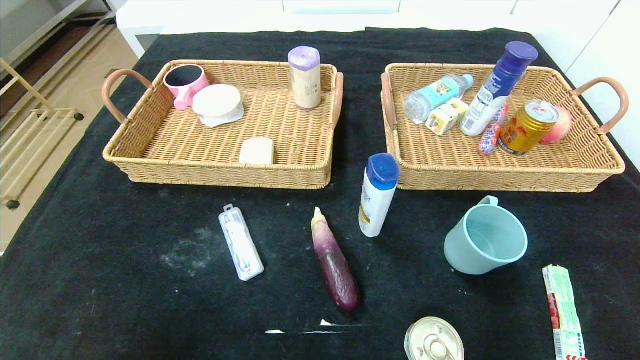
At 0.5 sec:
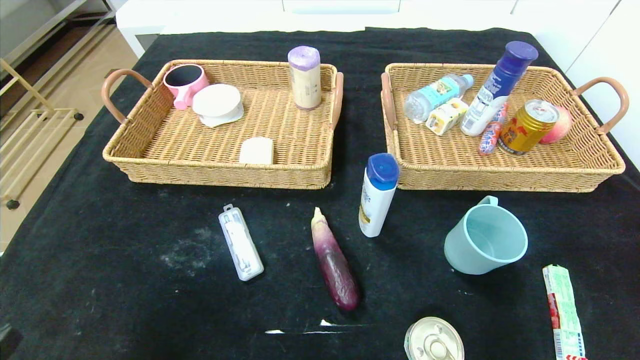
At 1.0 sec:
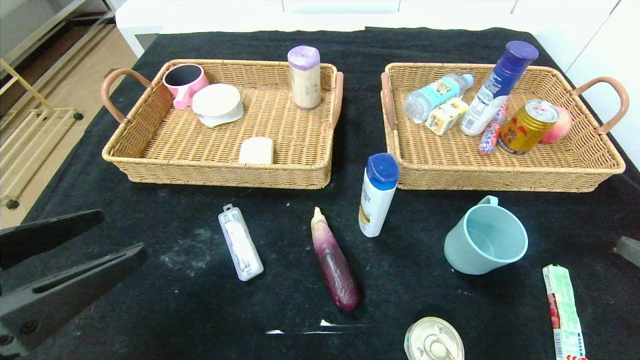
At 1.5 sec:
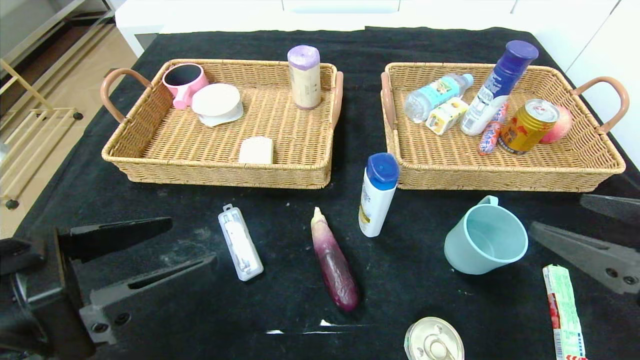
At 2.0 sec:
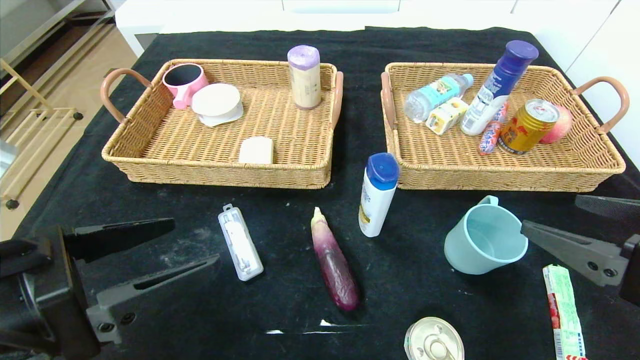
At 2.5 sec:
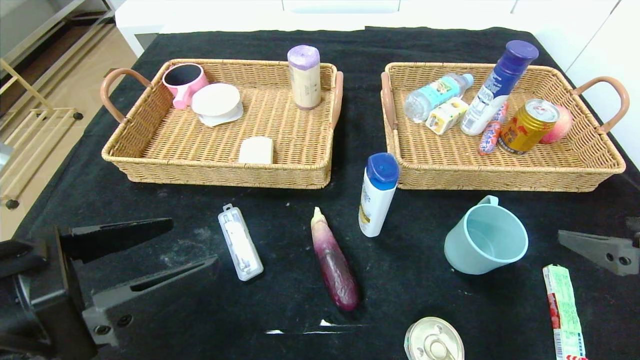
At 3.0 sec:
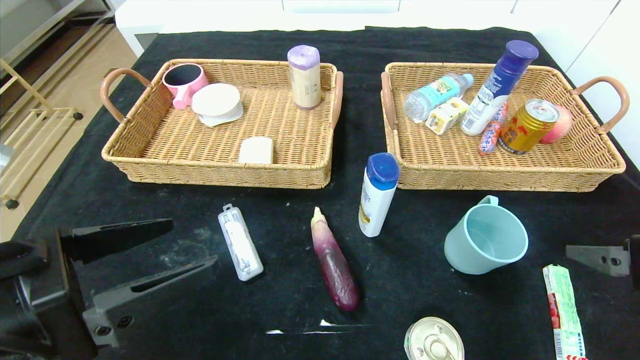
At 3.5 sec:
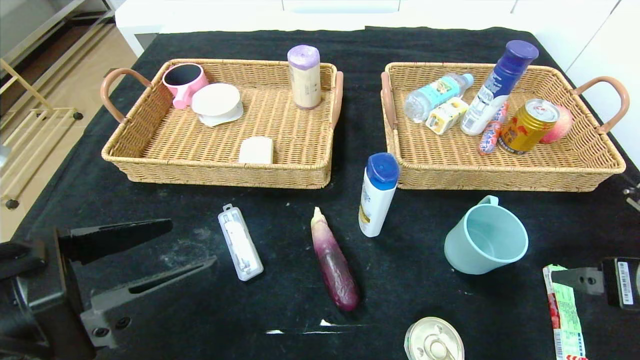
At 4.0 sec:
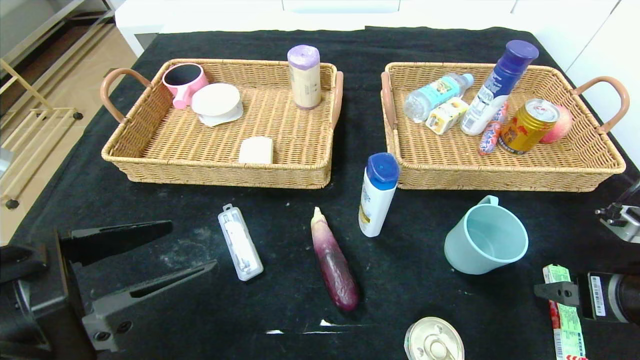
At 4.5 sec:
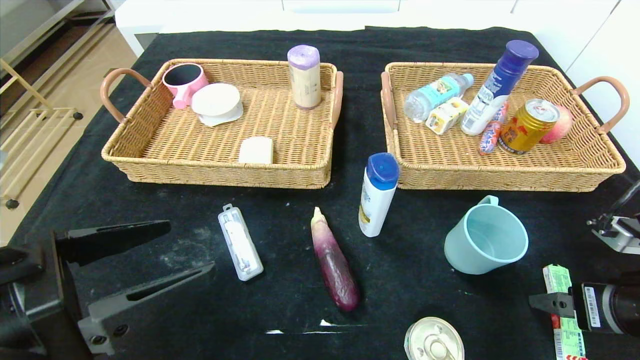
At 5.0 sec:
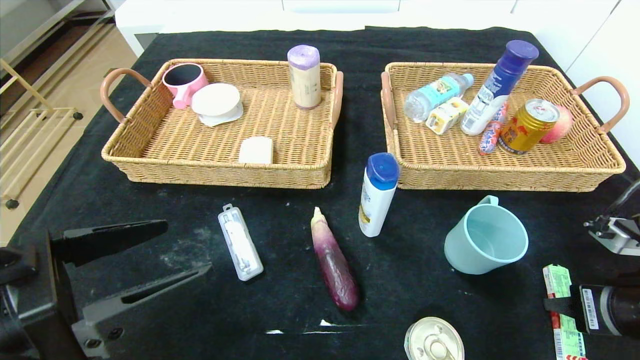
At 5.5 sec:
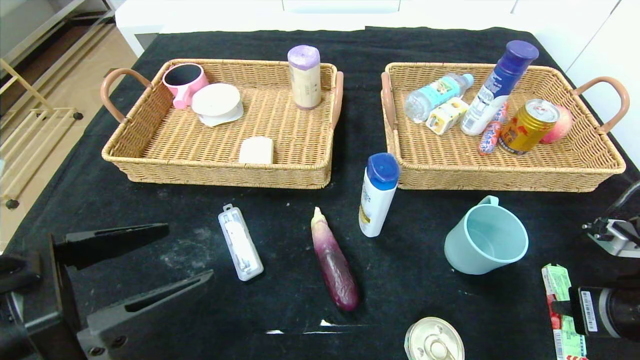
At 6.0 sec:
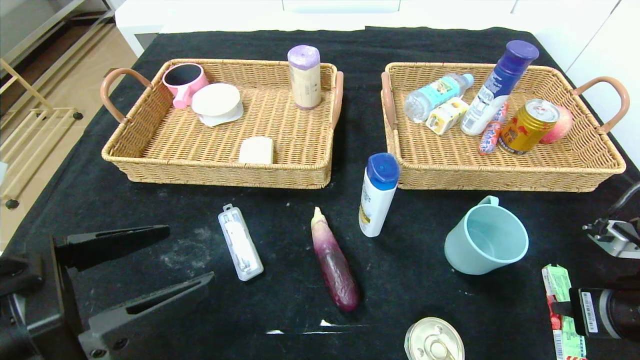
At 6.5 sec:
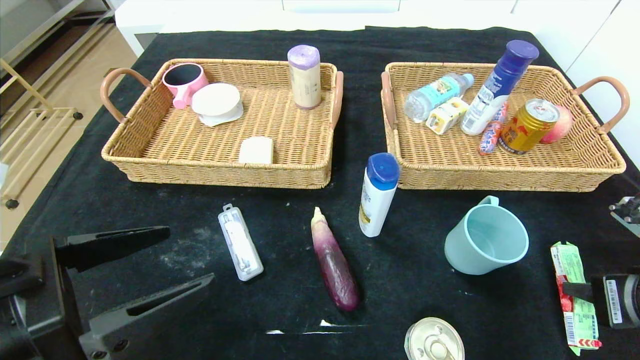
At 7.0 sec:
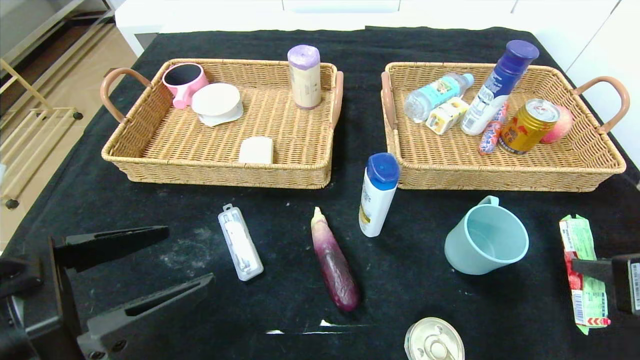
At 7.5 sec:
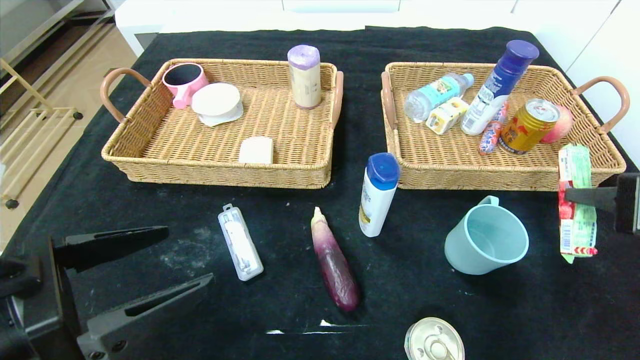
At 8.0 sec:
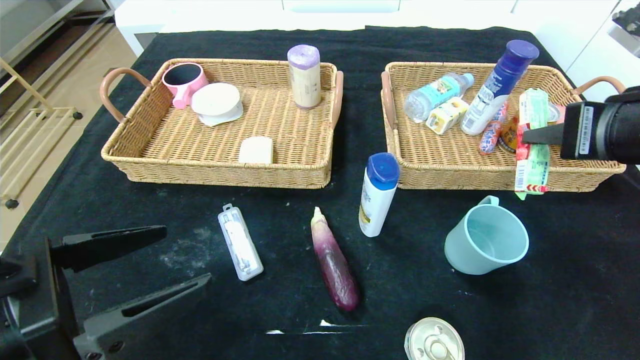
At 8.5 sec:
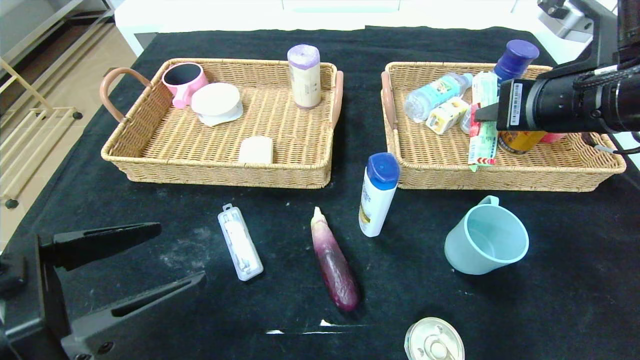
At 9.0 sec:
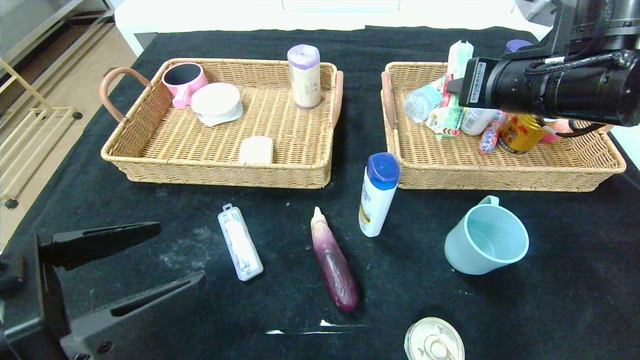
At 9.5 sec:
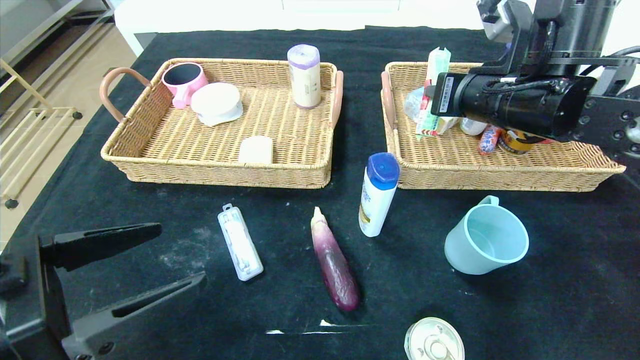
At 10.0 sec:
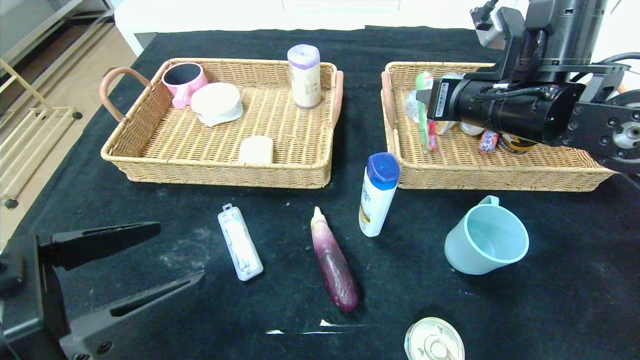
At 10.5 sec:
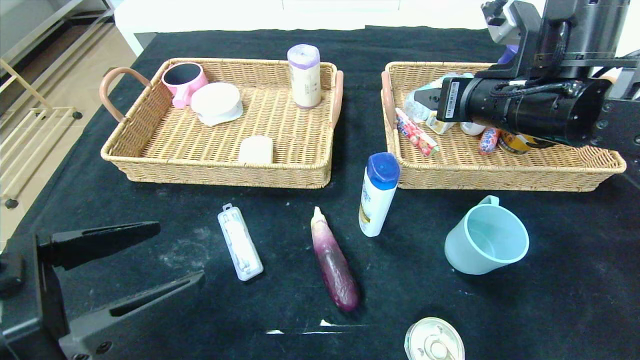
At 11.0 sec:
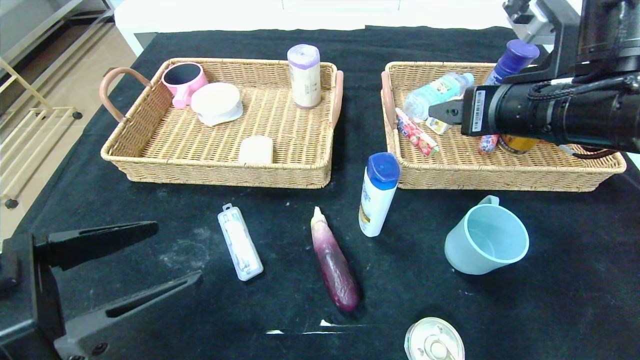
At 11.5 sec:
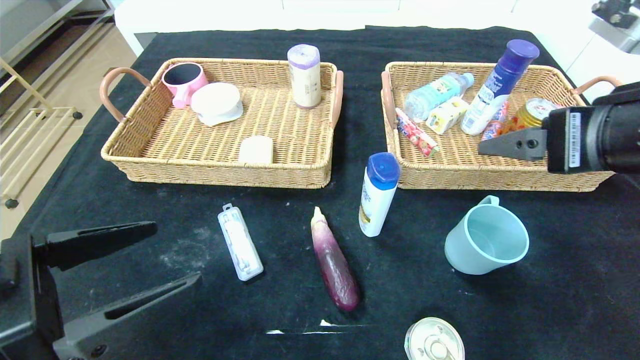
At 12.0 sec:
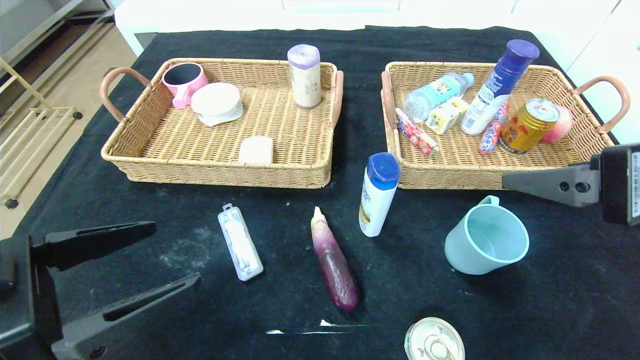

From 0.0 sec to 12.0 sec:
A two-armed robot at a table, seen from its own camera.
From 0.0 sec to 2.0 sec: The left gripper goes some 20 cm forward, upward and to the right, while the right gripper heads forward, upward and to the left, covering approximately 20 cm.
From 2.0 sec to 4.0 sec: The right gripper goes roughly 5 cm downward.
From 4.0 sec to 6.0 sec: The right gripper closes its fingers.
From 6.0 sec to 8.0 sec: The right gripper shifts about 15 cm upward.
From 8.0 sec to 10.0 sec: The right gripper is displaced forward and to the left by approximately 15 cm, and opens its fingers.
From 10.0 sec to 12.0 sec: The right gripper moves backward, about 20 cm, and opens its fingers.

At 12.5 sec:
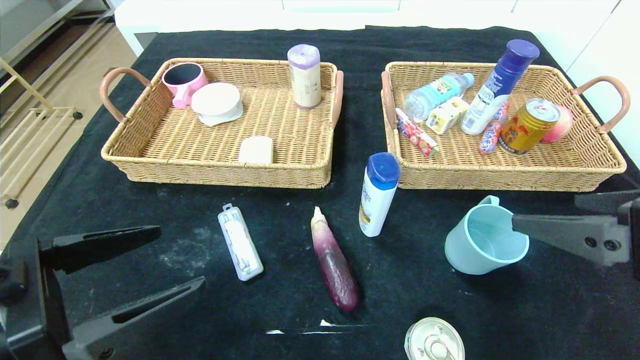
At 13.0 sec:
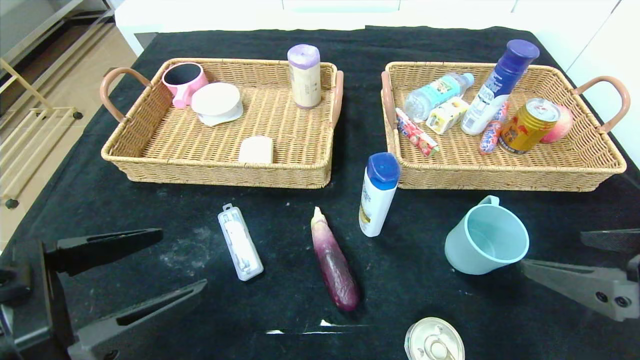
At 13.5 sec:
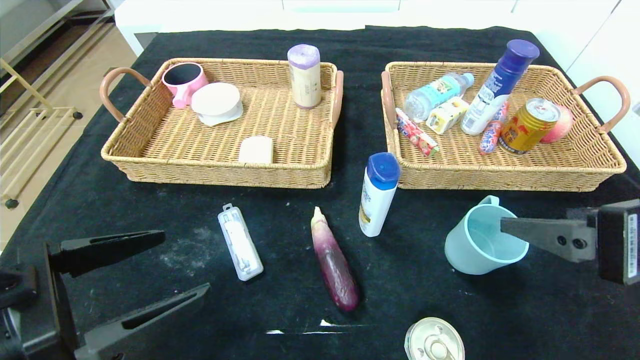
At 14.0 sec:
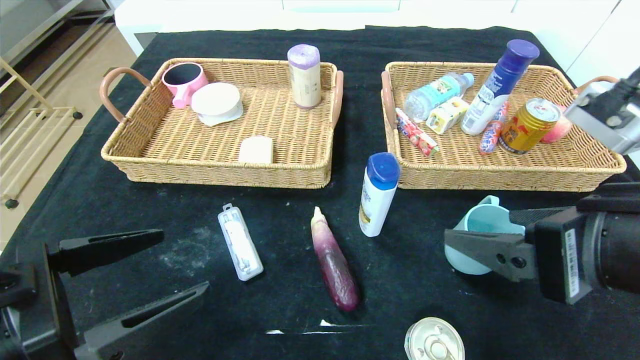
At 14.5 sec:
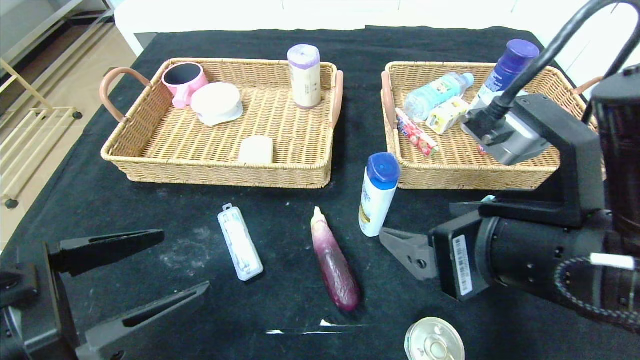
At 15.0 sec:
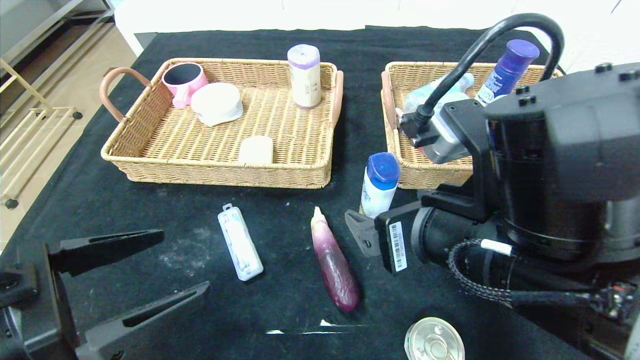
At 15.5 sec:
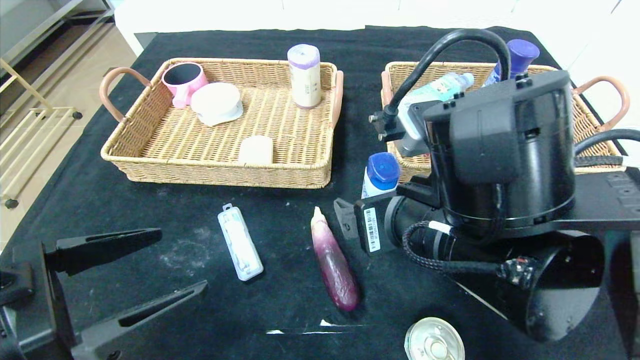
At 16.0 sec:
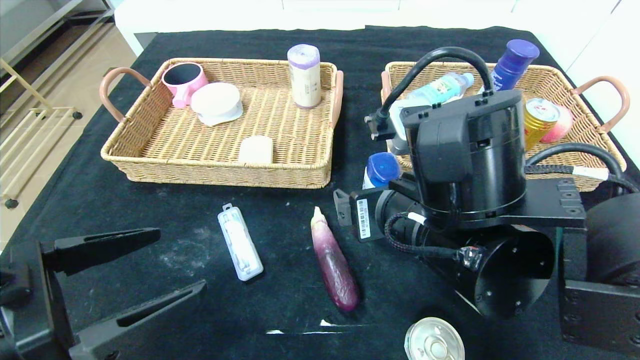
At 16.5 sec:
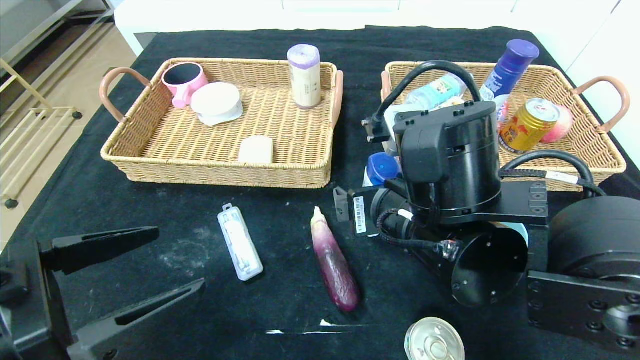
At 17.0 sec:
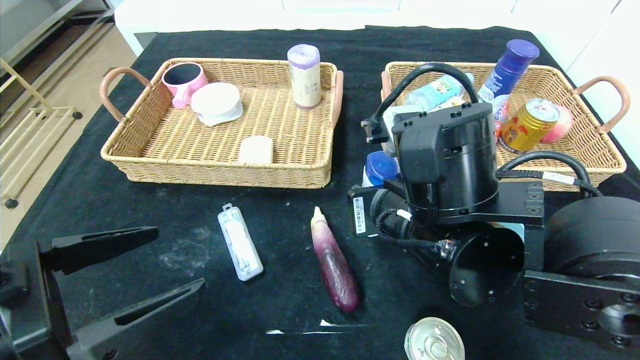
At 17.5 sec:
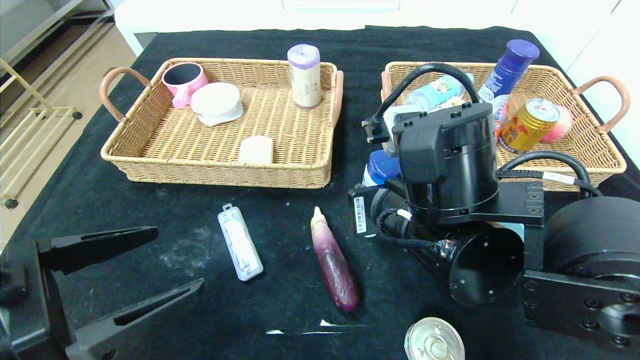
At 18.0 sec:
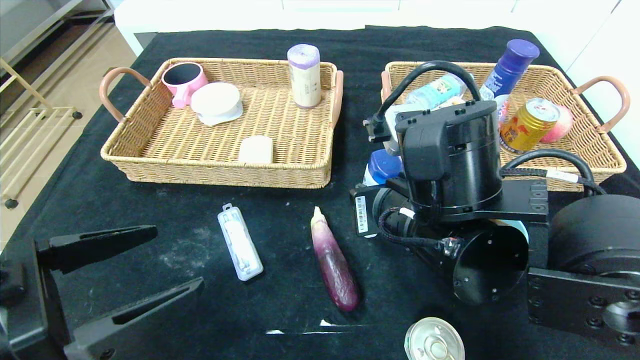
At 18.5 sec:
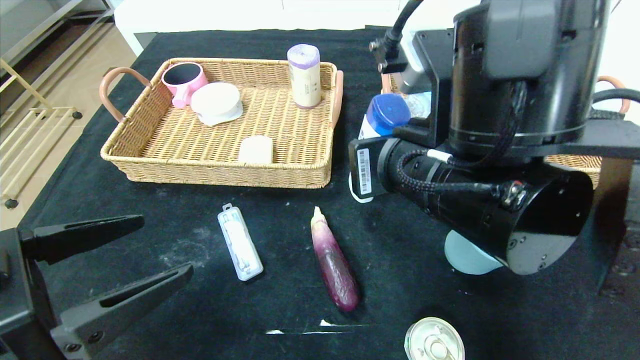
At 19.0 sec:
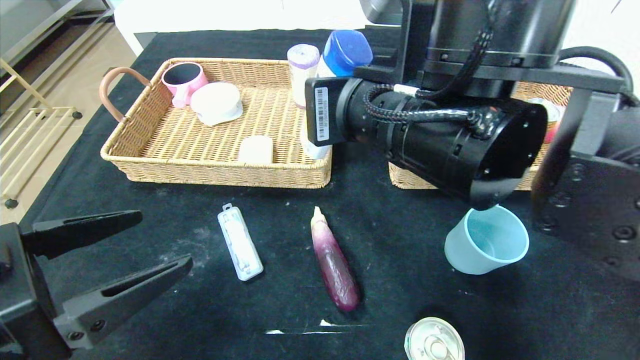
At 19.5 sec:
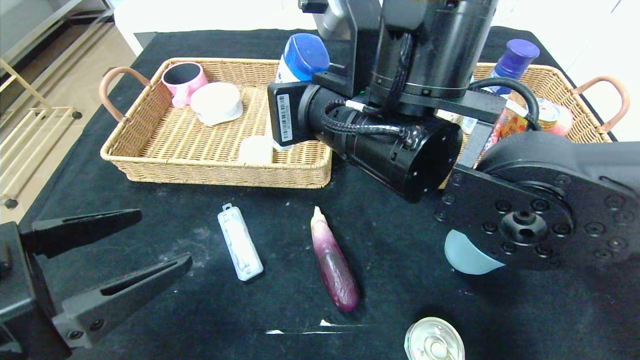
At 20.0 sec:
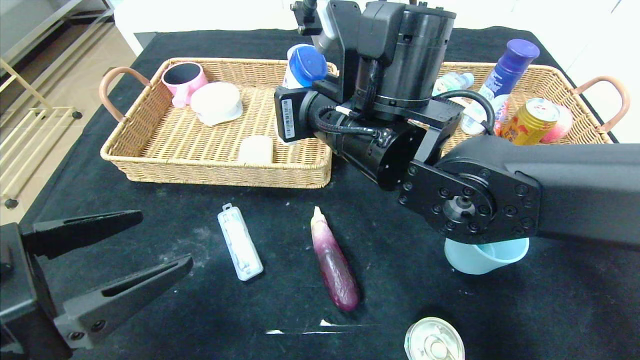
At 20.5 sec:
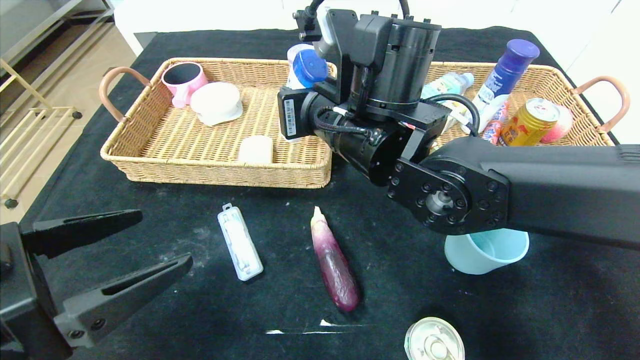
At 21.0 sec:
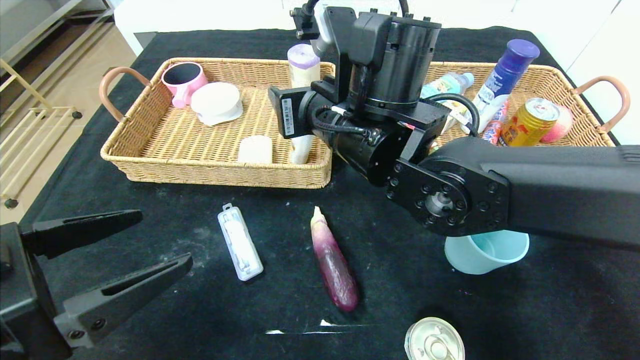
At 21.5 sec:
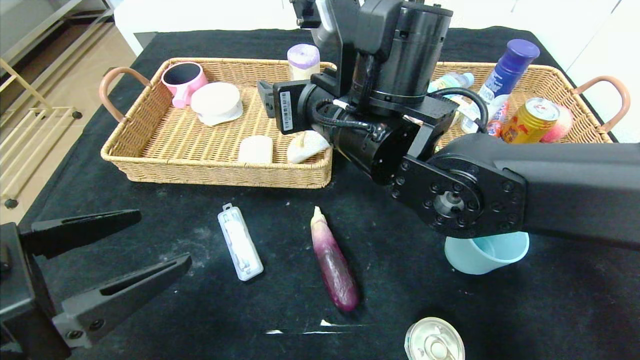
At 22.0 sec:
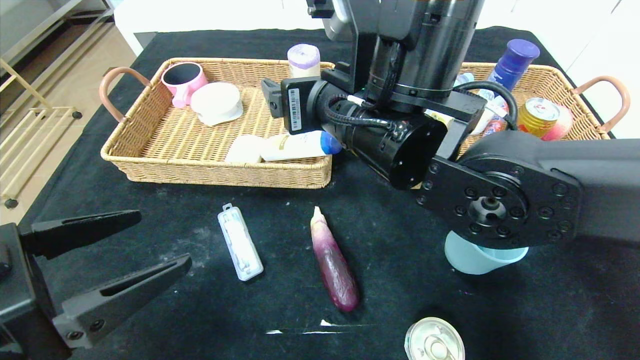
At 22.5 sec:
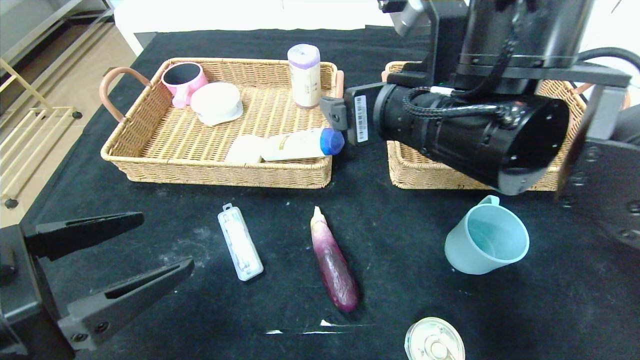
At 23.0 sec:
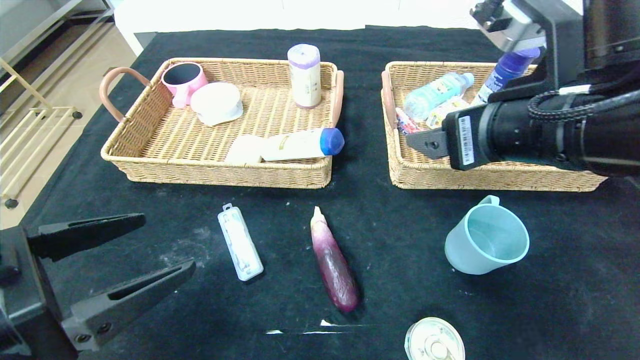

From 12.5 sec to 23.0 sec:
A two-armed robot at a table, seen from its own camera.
From 12.5 sec to 14.5 sec: The right gripper goes roughly 10 cm to the left.
From 14.5 sec to 16.5 sec: The right gripper moves forward and to the left, some 10 cm.
From 16.5 sec to 19.0 sec: The right gripper goes some 10 cm upward, and closes its fingers.
From 19.0 sec to 21.0 sec: The right gripper goes some 10 cm forward, and opens its fingers.
From 21.0 sec to 23.0 sec: The right gripper travels to the right and backward by approximately 20 cm.
